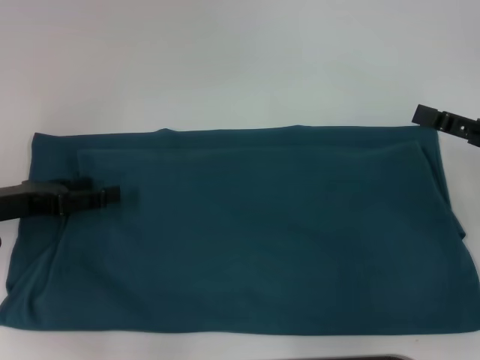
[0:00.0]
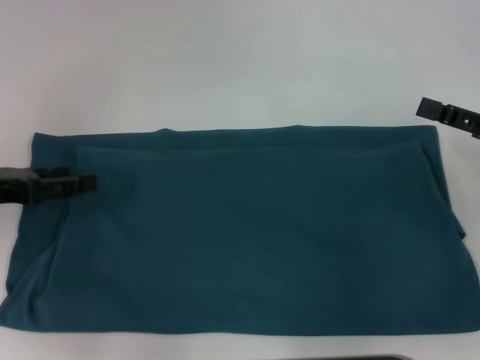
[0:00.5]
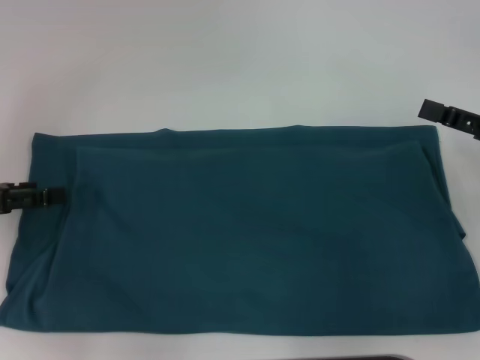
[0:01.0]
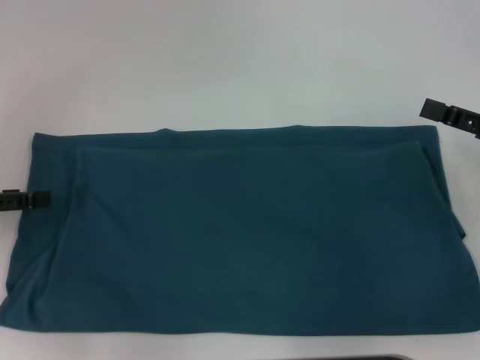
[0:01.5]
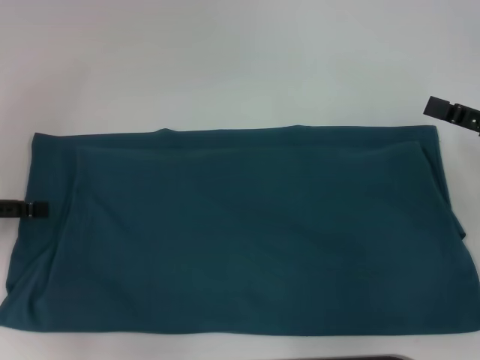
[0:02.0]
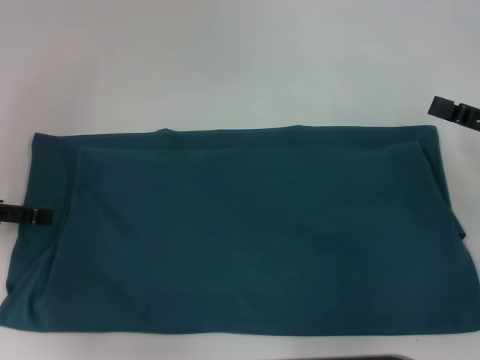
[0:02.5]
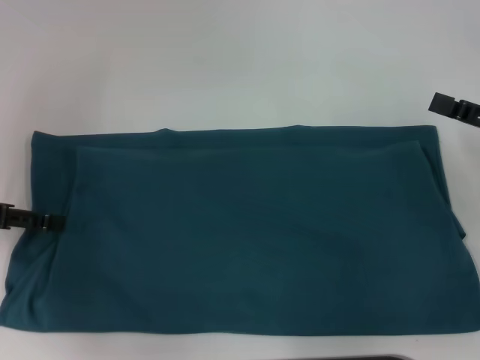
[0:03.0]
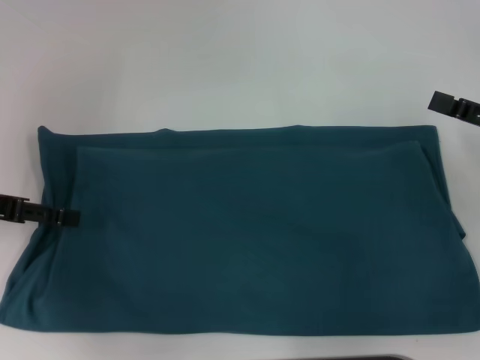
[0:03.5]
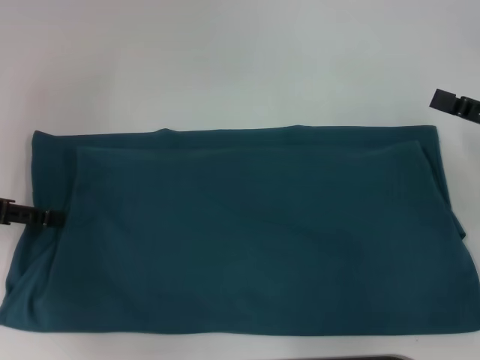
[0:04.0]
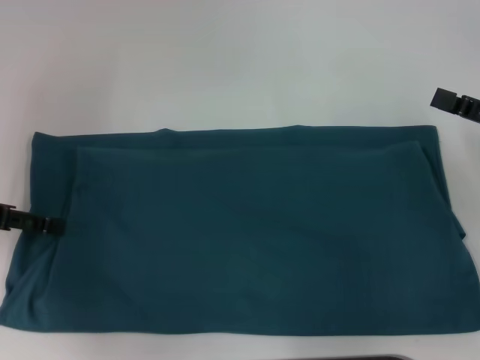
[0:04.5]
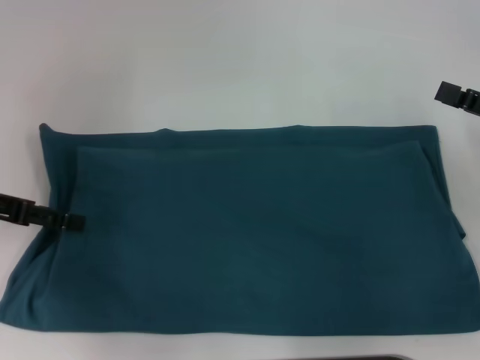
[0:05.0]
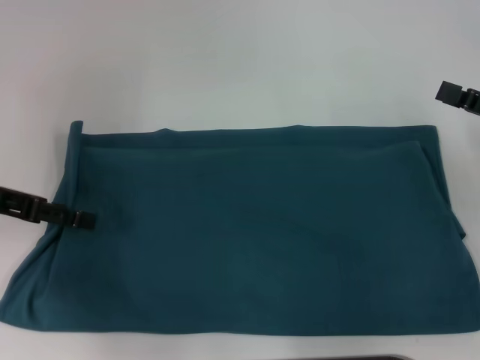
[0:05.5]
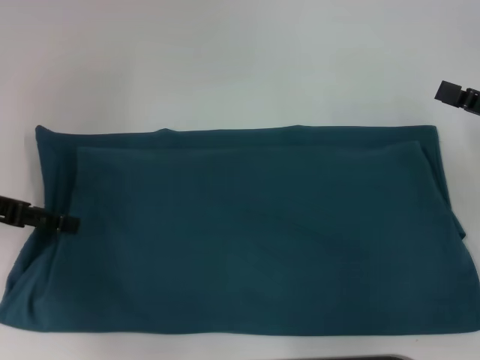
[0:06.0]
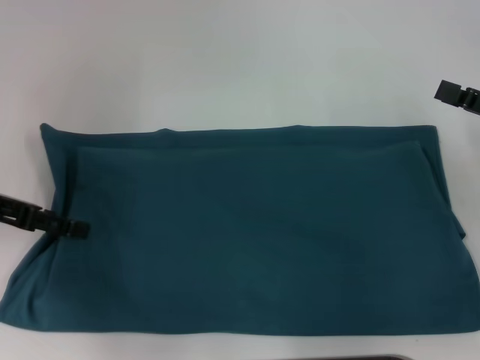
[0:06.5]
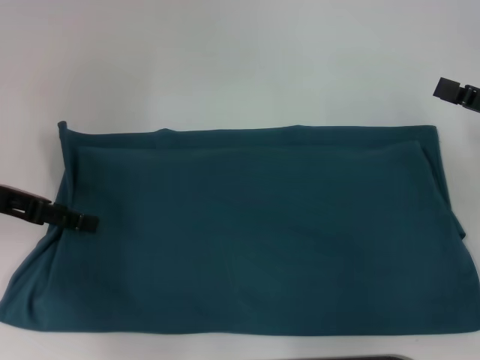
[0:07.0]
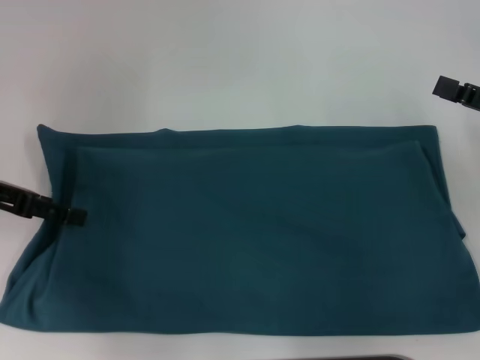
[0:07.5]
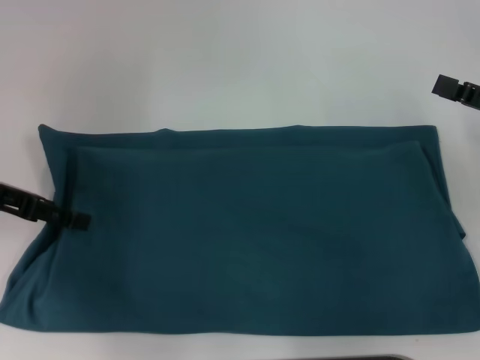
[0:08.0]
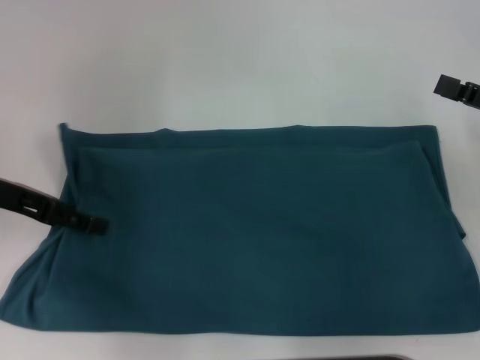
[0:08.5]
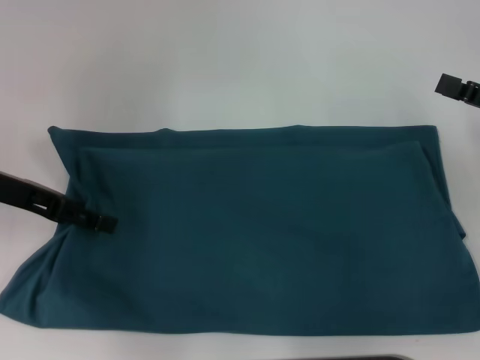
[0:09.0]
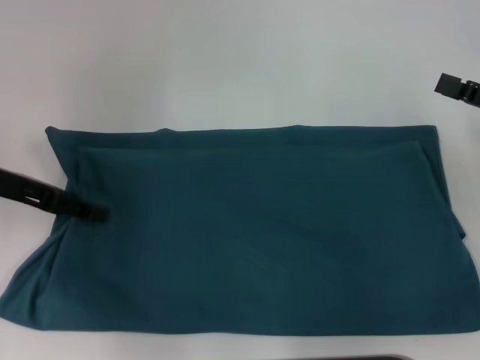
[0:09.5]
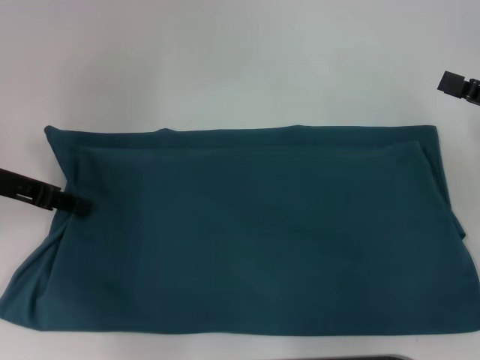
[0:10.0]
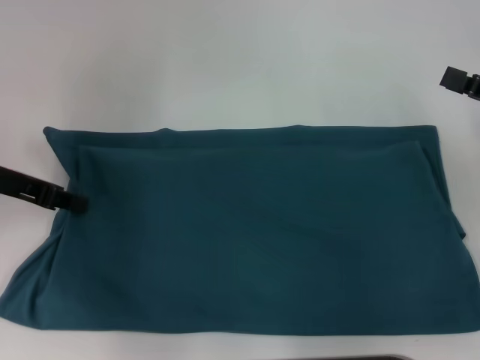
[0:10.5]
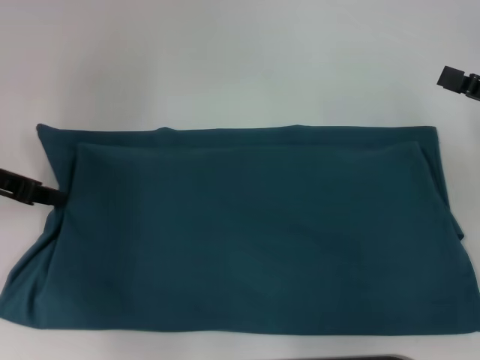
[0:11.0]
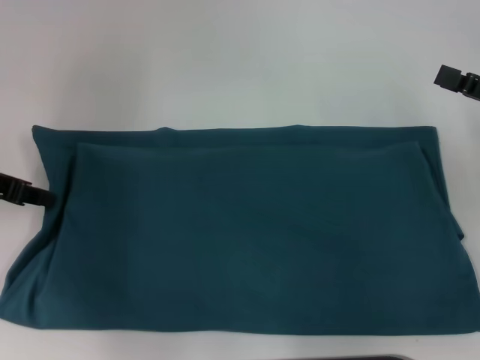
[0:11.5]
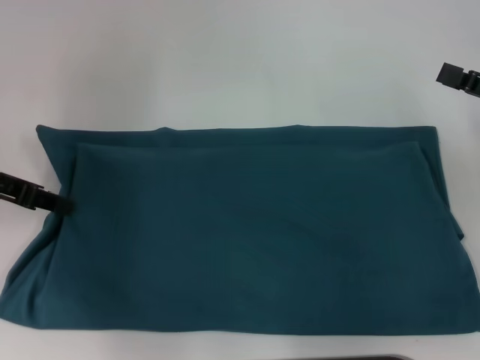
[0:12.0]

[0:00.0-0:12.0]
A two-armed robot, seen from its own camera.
0:00.0 to 0:02.0: The left gripper travels to the left by roughly 5 cm.
0:02.0 to 0:04.0: The grippers stay close to where they were, moving slightly.
0:04.0 to 0:08.0: The grippers make only small movements.
0:08.0 to 0:10.0: The left gripper closes up.
0:10.0 to 0:12.0: The left gripper closes.

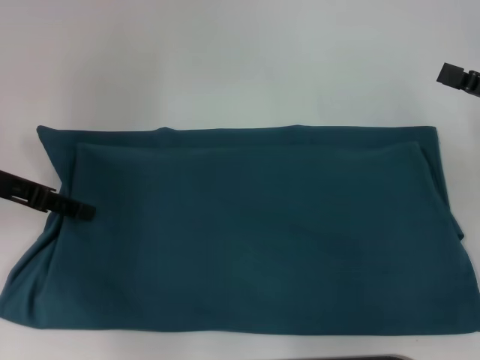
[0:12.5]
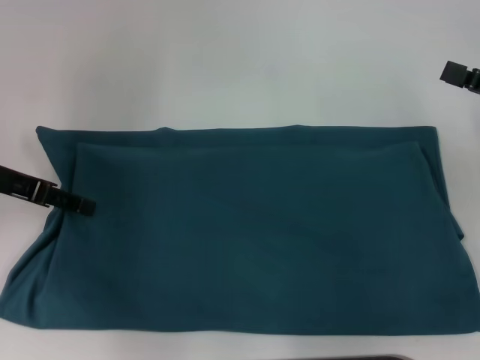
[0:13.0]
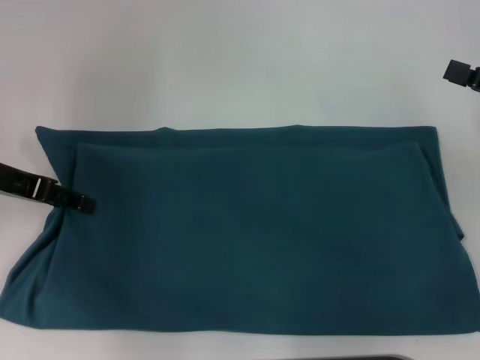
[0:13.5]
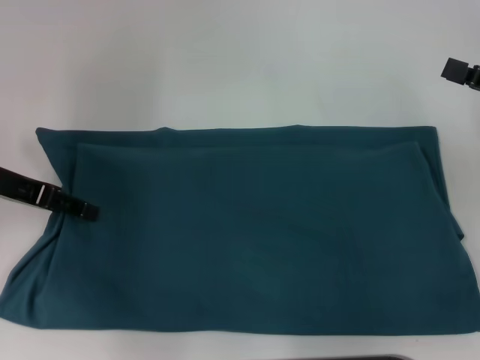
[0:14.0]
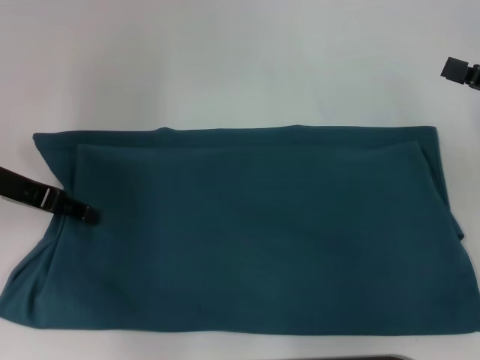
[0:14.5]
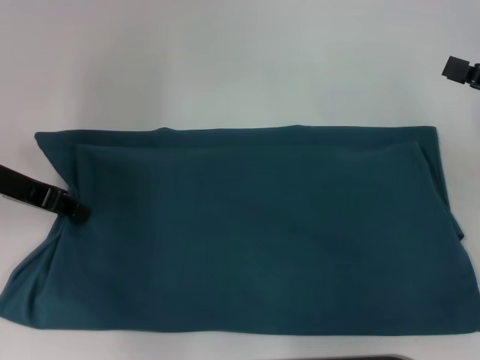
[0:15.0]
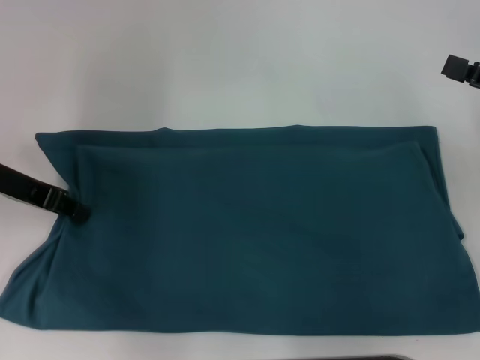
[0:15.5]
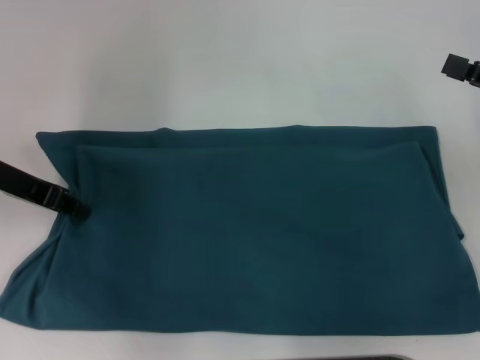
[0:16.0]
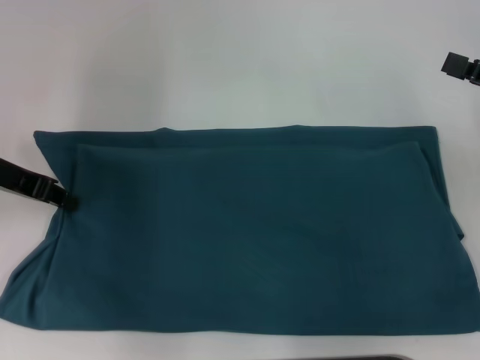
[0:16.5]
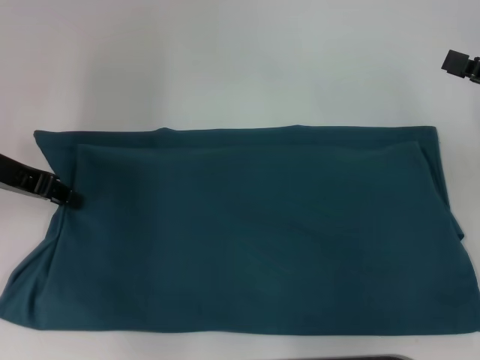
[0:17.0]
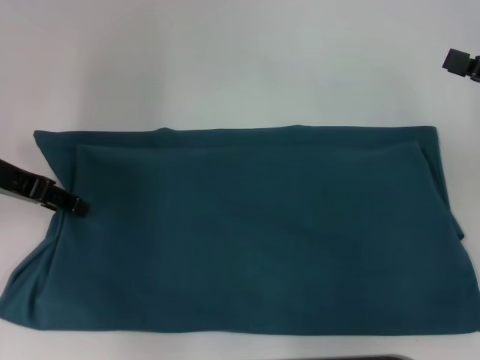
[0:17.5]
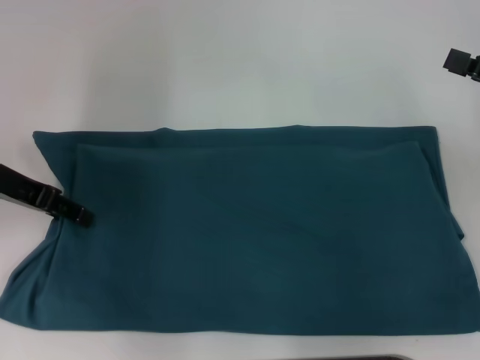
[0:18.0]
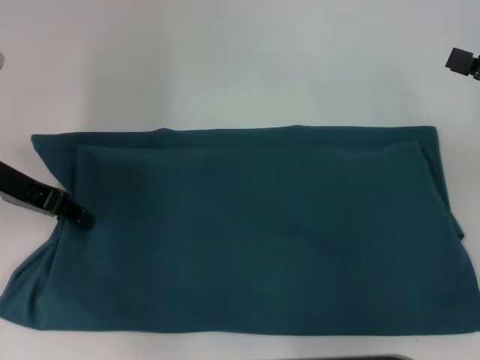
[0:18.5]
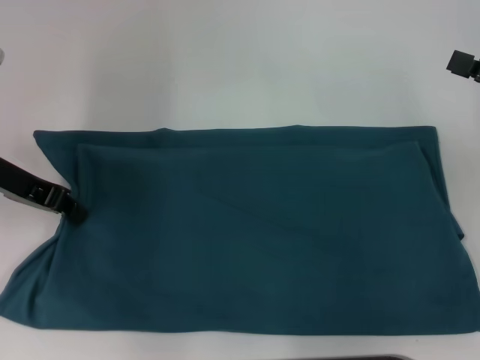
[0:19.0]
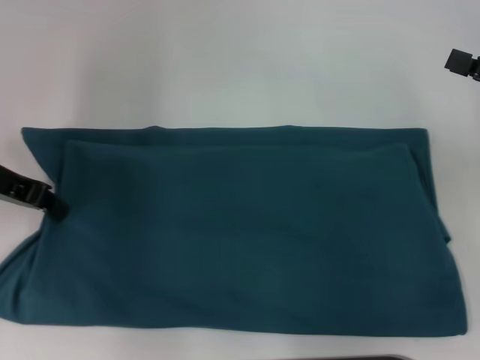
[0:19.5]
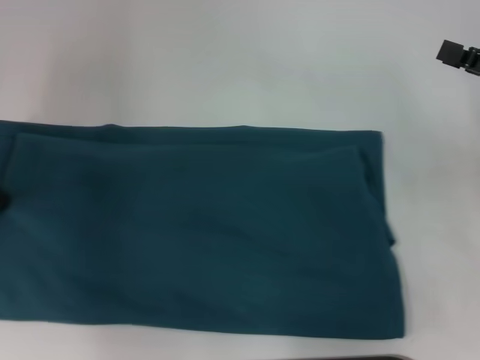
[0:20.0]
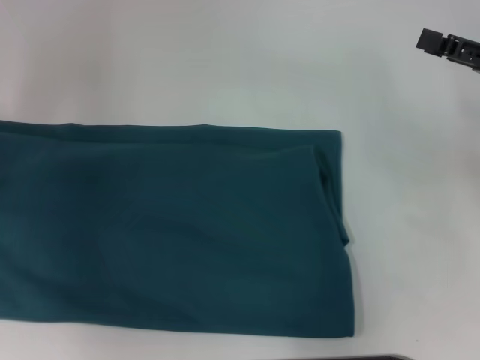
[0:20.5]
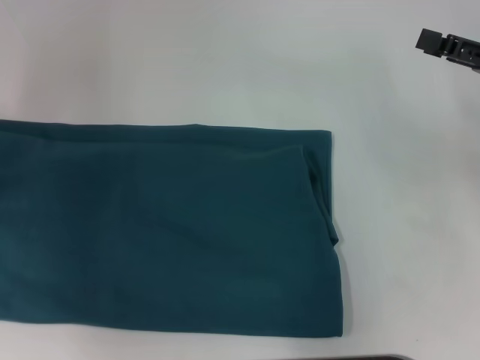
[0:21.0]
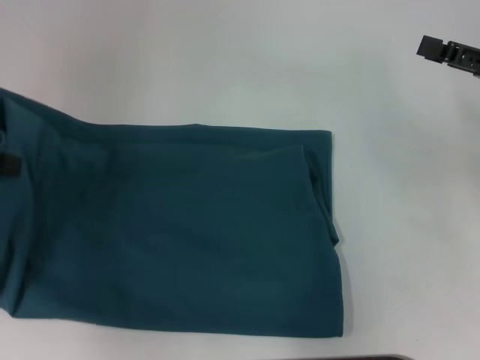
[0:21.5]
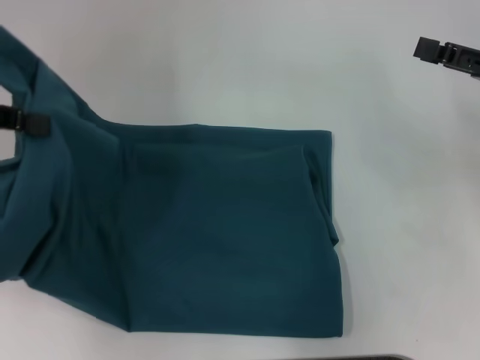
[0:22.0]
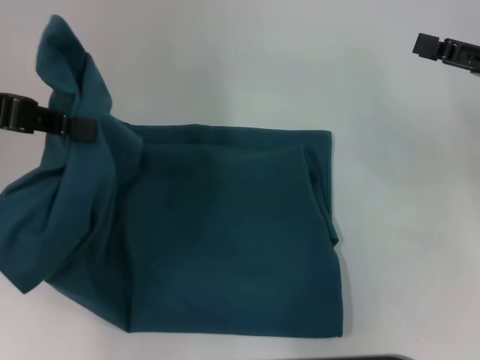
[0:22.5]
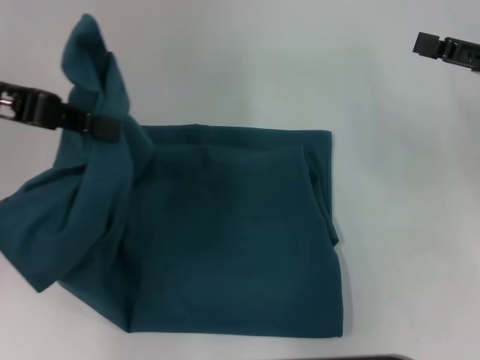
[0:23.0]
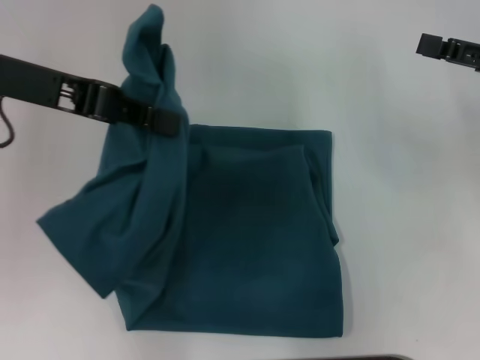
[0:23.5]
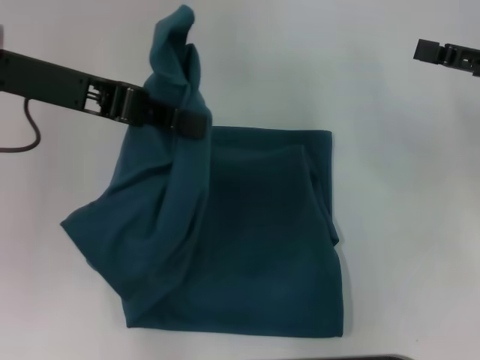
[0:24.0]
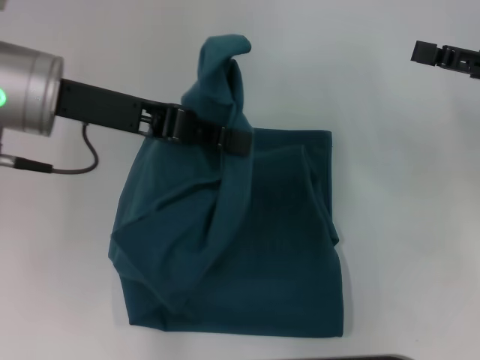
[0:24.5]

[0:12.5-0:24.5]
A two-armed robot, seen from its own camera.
0:12.5 to 0:14.5: There are only small adjustments of the grippers.
0:14.5 to 0:16.5: The left gripper closes its fingers.
0:16.5 to 0:18.5: The left gripper opens.
0:18.5 to 0:20.5: The left gripper travels to the left by some 10 cm, and closes its fingers.
0:20.5 to 0:22.5: The left gripper is displaced to the right and upward by about 10 cm.
0:22.5 to 0:24.5: The left gripper heads to the right, covering roughly 10 cm.

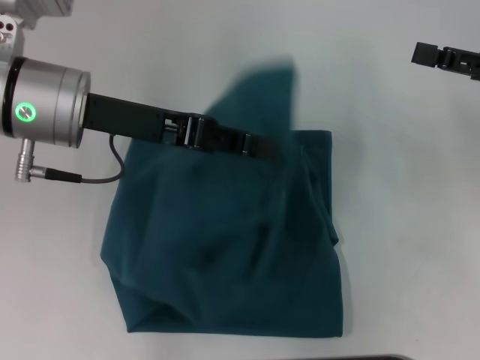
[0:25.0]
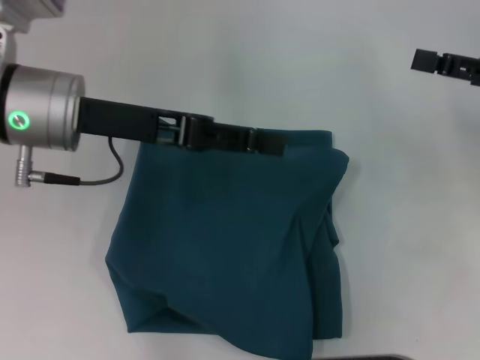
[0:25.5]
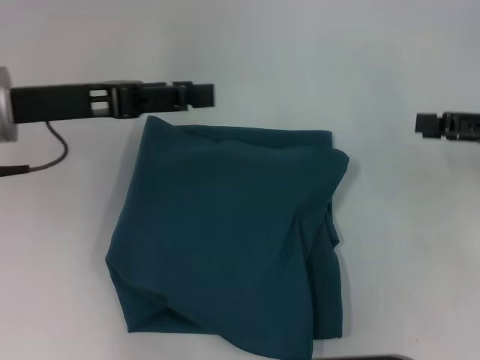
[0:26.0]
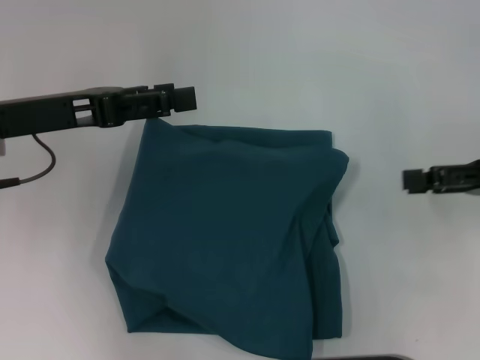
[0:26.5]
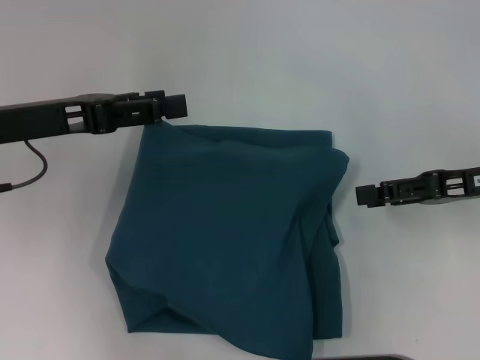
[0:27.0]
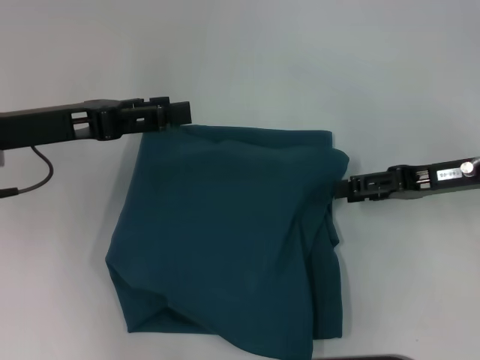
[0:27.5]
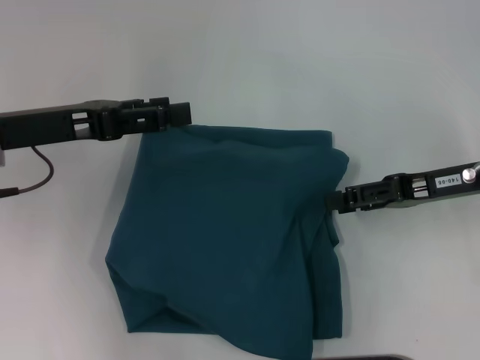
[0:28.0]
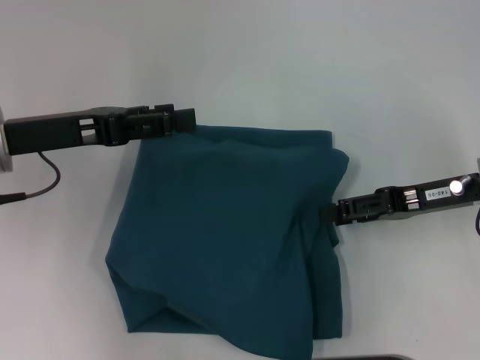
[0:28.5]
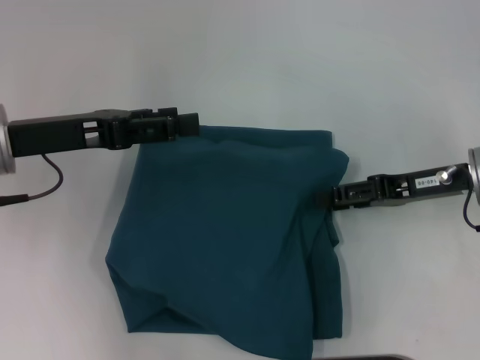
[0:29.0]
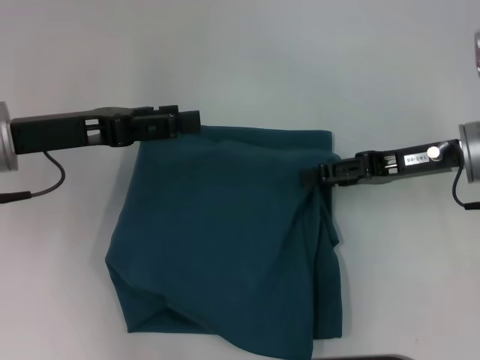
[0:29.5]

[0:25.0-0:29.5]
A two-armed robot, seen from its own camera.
0:25.0 to 0:27.0: The right gripper ends up roughly 5 cm from where it was. The left gripper shifts some 10 cm to the left, and opens up.
0:27.0 to 0:29.5: The right gripper travels to the left by approximately 5 cm.
